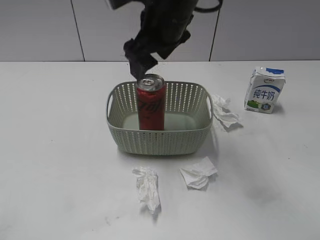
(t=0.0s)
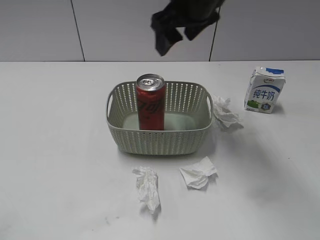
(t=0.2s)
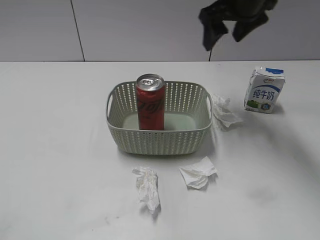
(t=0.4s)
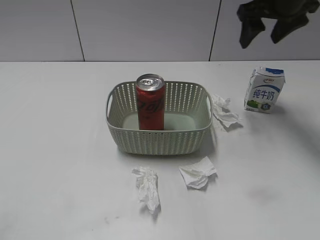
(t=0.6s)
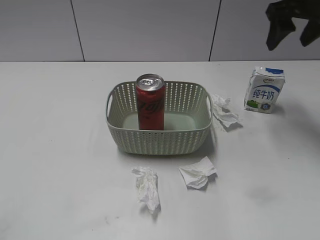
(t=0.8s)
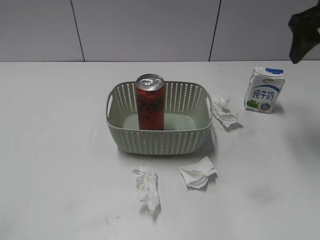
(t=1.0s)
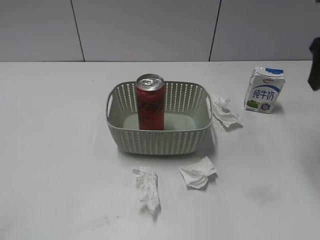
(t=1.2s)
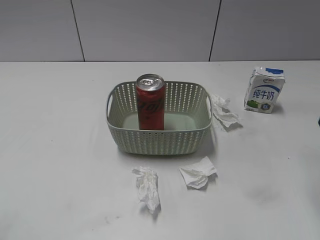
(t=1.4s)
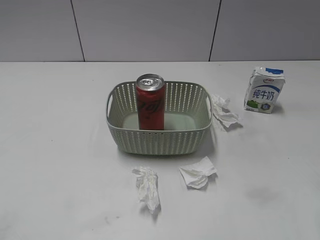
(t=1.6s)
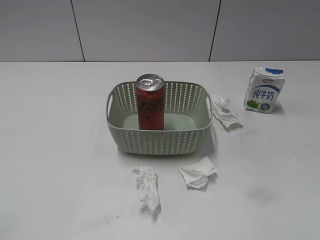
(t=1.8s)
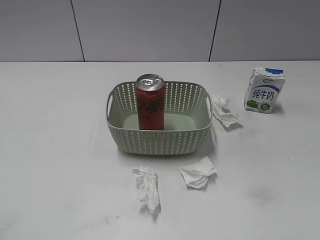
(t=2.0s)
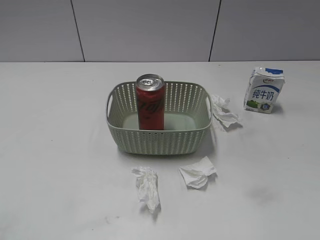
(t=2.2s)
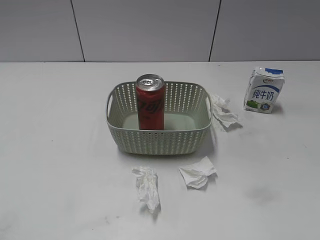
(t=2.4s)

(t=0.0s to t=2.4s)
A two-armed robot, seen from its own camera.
t=0.0s - t=1.2s: The right gripper shifts roughly 25 cm to the right, and closes up.
t=1.2s - t=2.4s: The right gripper goes about 25 cm backward.
